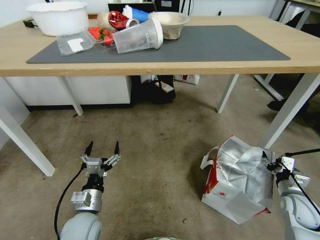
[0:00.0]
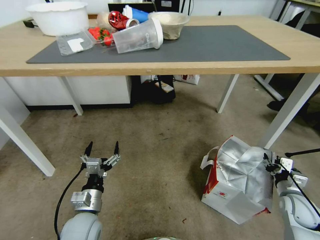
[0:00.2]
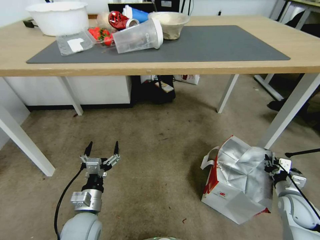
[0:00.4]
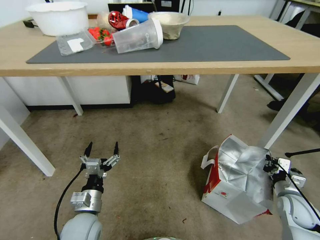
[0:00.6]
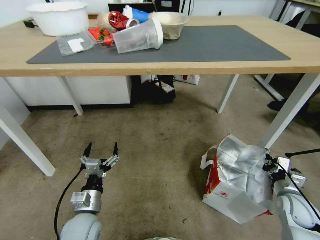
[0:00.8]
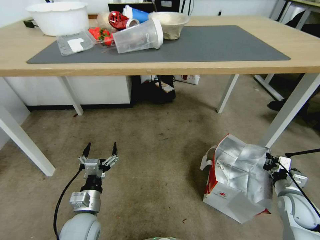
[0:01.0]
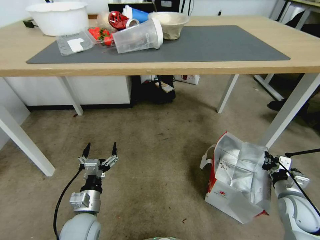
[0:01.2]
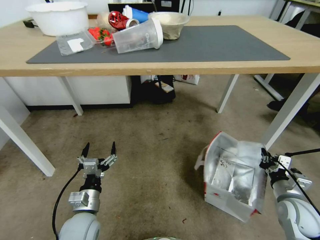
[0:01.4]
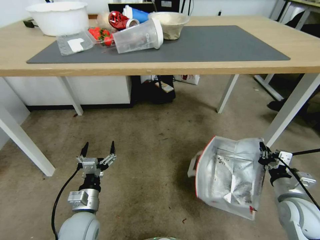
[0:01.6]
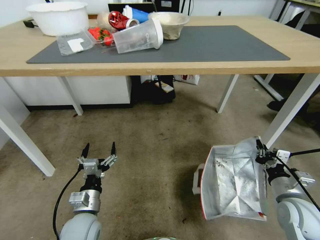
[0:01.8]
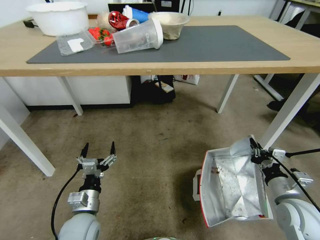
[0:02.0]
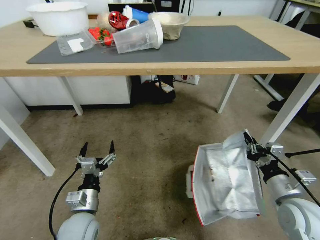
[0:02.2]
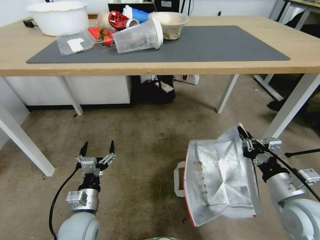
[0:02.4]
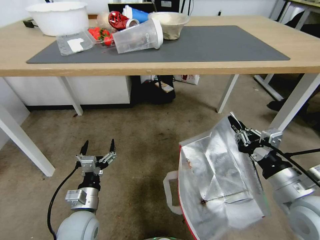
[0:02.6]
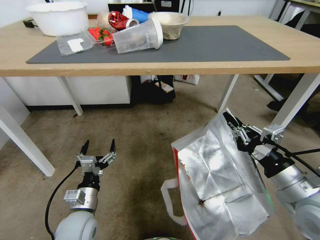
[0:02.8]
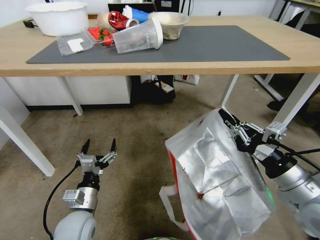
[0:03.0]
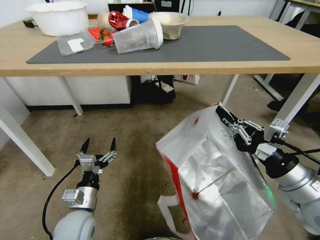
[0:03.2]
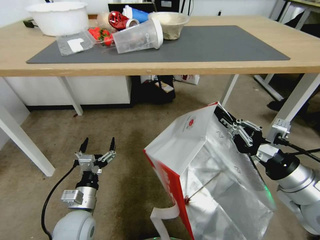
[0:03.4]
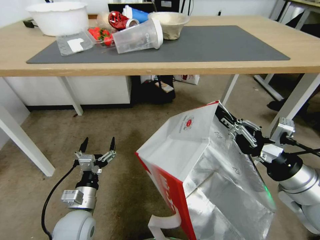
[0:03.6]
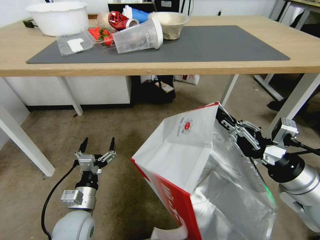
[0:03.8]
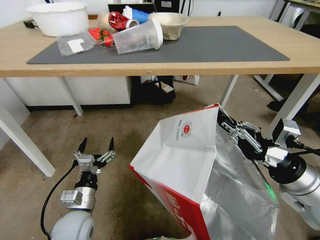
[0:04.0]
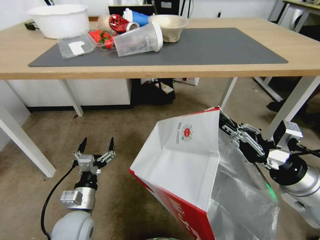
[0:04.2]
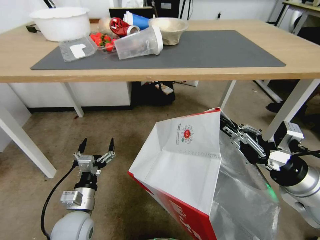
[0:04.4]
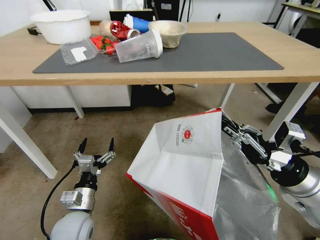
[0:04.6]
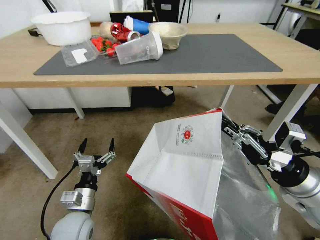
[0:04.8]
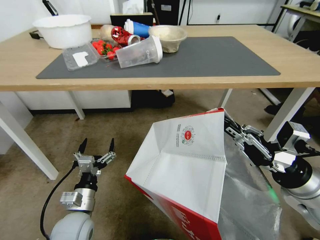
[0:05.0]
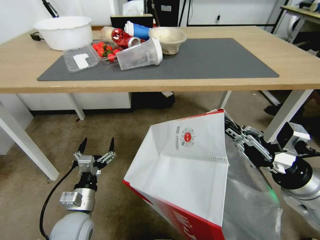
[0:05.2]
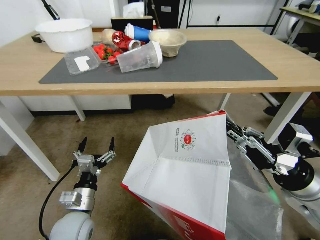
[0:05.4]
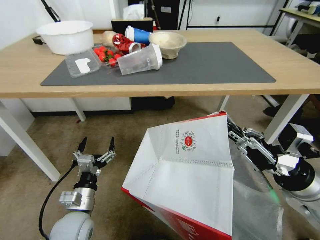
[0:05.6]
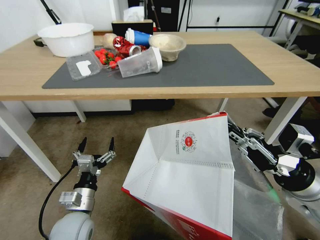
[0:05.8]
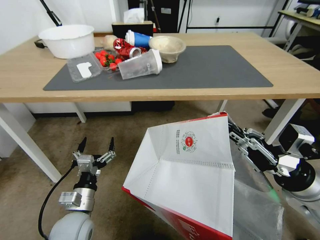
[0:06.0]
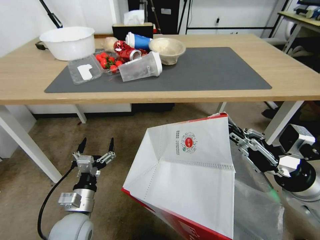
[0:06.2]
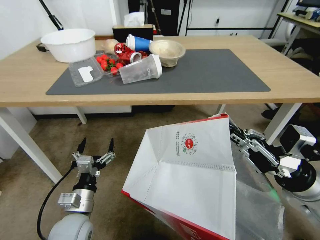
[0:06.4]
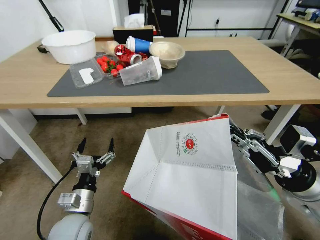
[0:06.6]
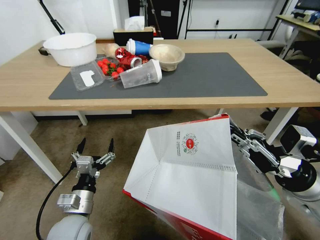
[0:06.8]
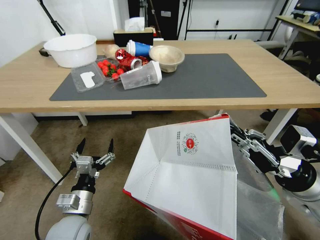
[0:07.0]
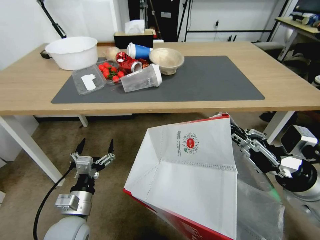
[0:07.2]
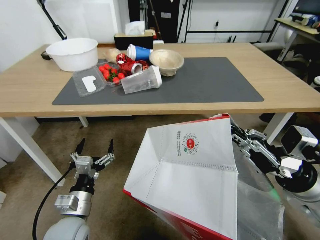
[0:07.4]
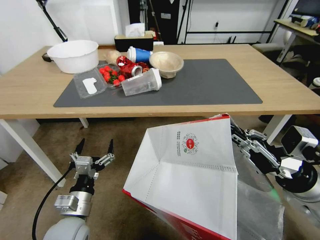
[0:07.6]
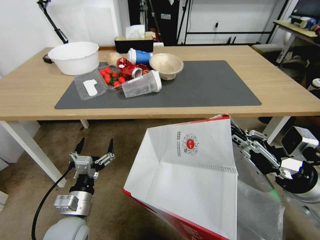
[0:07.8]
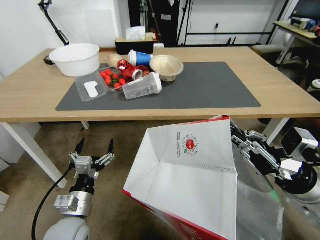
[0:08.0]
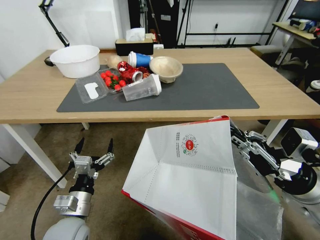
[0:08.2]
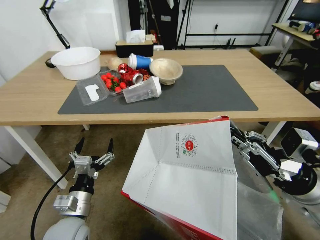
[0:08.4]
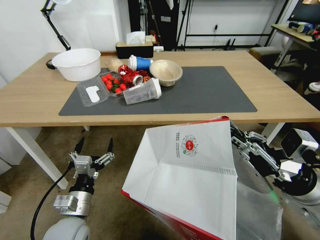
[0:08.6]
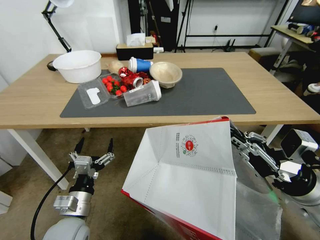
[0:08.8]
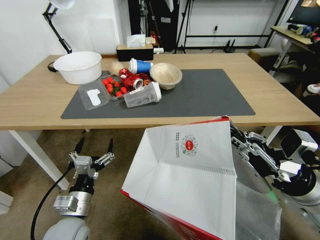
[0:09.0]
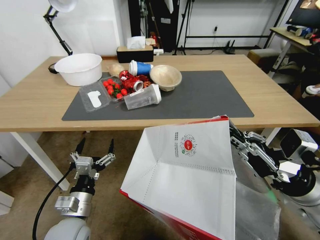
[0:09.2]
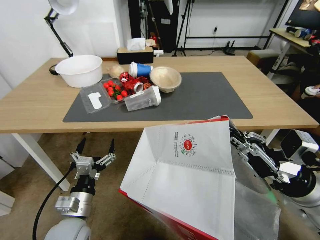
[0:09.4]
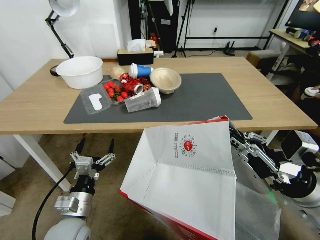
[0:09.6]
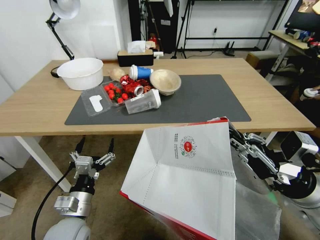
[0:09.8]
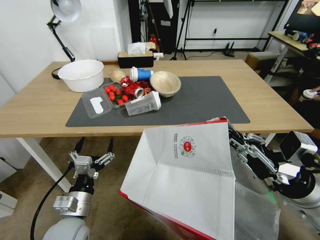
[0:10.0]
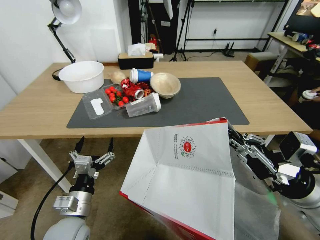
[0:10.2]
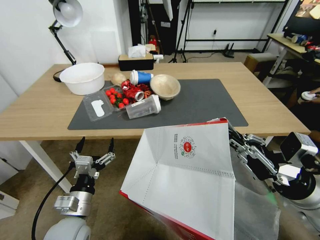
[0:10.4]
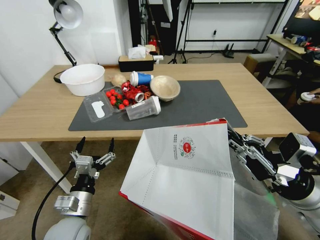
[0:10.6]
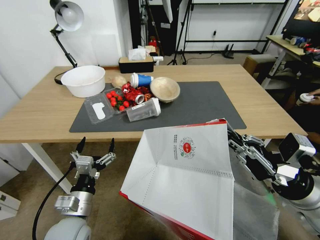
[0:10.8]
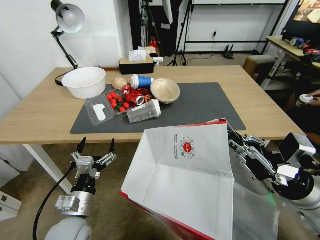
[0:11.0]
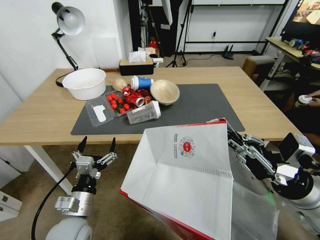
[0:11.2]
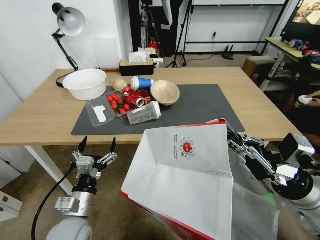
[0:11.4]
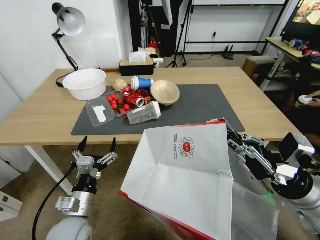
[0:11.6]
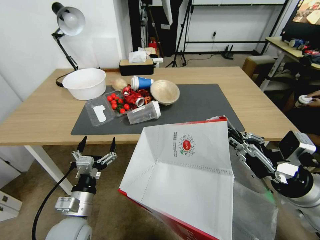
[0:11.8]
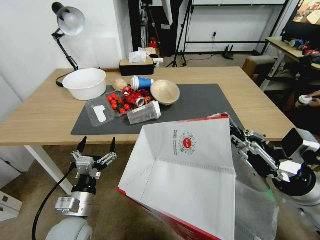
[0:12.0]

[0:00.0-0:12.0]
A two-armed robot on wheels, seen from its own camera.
Task of the whole recording: Pick up the food delivery bag from the floor and place it on the table.
0:00.0 to 0:01.6: The right gripper heads upward and to the left, covering roughly 10 cm, and closes its fingers.
0:01.6 to 0:03.0: The right gripper goes some 15 cm upward and to the left.

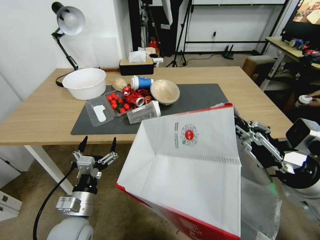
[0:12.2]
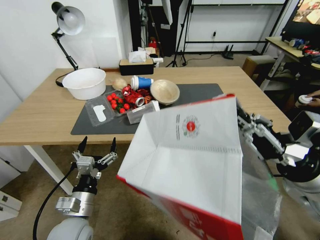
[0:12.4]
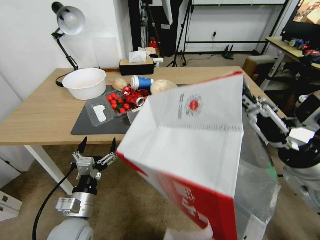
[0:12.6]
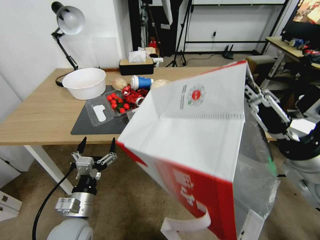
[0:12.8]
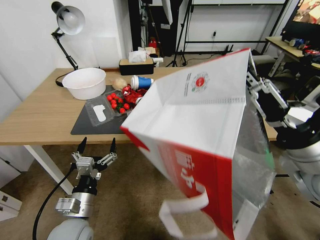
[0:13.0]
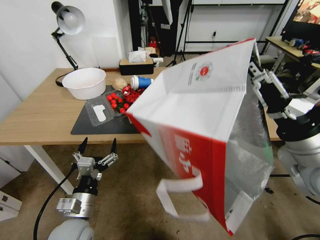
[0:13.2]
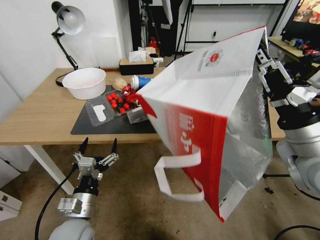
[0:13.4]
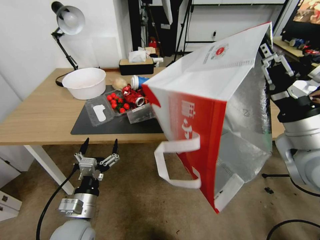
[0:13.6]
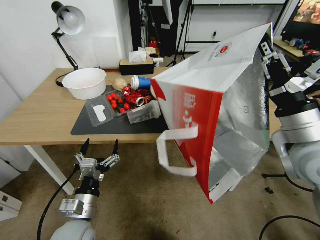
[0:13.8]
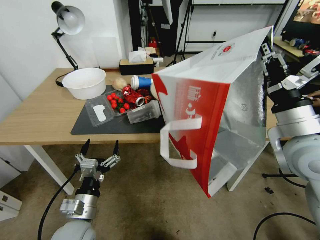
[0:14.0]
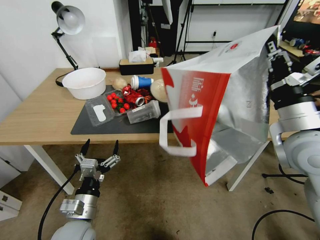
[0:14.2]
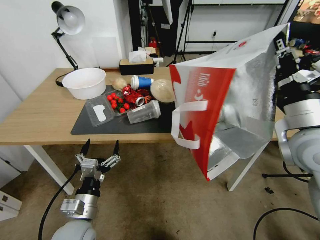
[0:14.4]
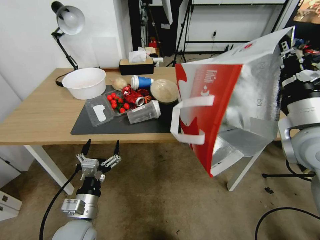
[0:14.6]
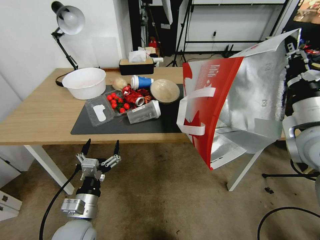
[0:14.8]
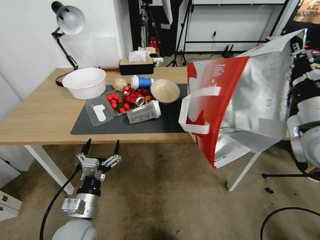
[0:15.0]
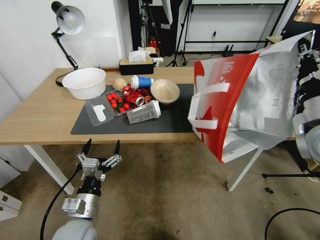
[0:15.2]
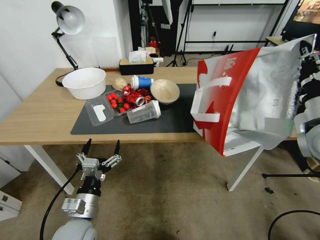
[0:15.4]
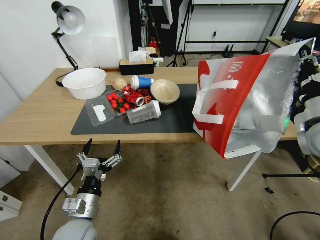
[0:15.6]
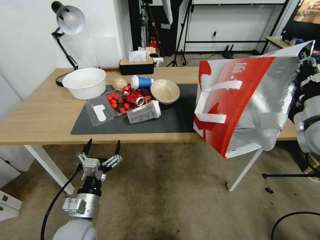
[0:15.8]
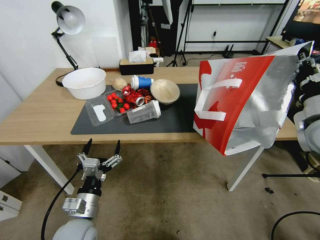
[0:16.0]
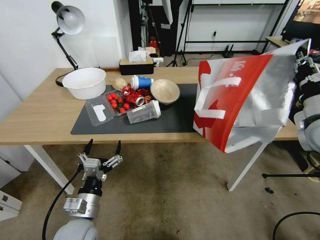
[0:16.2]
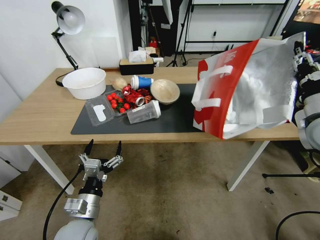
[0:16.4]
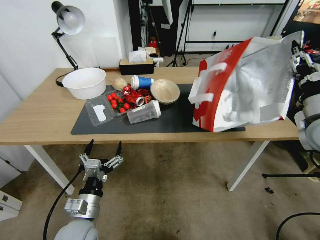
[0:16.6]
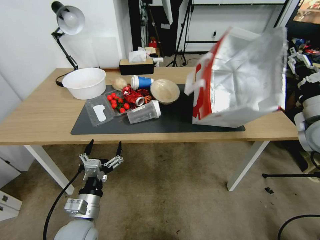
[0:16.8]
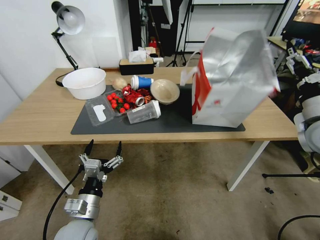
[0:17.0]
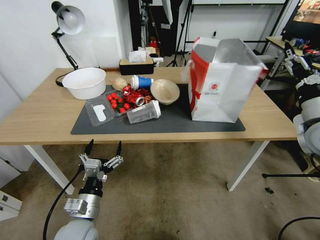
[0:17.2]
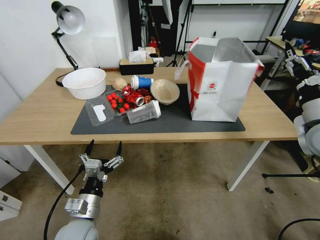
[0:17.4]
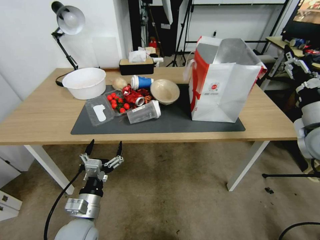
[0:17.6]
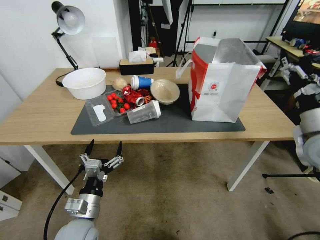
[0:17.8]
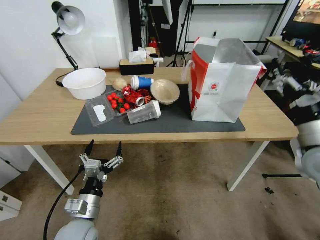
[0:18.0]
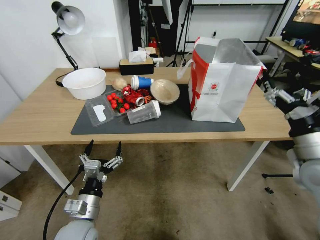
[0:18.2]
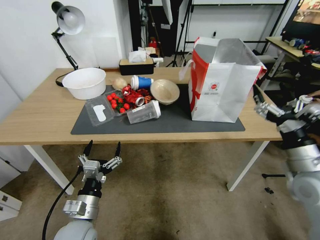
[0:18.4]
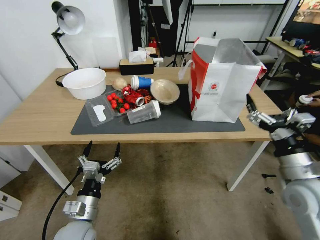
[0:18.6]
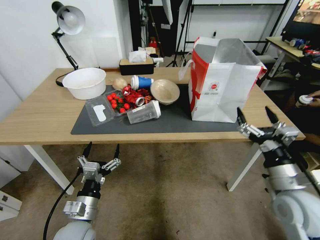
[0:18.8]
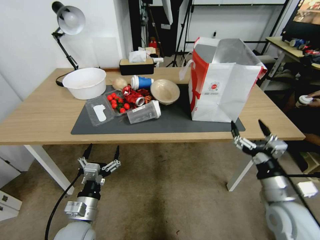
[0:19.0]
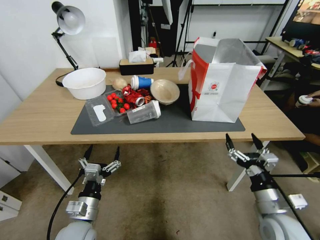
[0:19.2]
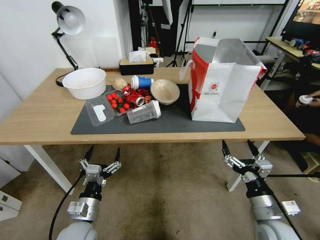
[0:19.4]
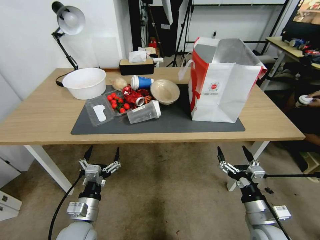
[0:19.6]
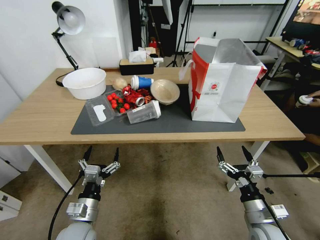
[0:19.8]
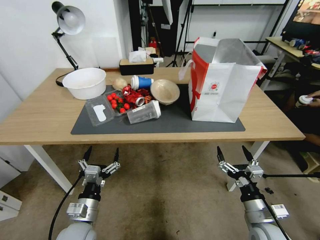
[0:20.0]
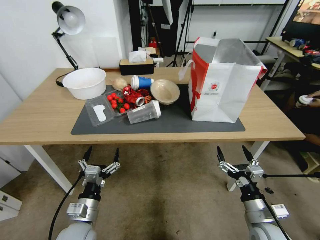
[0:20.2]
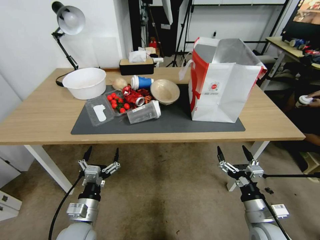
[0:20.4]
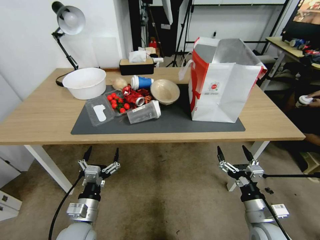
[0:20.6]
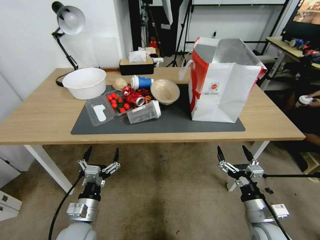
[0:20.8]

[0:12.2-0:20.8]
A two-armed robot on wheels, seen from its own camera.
Task of the whole recording: Pick up the food delivery bag from the floor and place it on the table.
0:12.2 to 0:13.6: The right gripper moves upward, some 5 cm.
0:13.6 to 0:15.0: The right gripper moves about 5 cm.
0:15.0 to 0:16.6: The right gripper travels to the right and forward by about 10 cm, and opens.
0:16.6 to 0:18.0: The right gripper is displaced backward by approximately 5 cm, and opens up.
0:18.0 to 0:19.4: The right gripper moves downward, backward and to the left, some 25 cm.
0:19.4 to 0:20.8: The grippers stay close to where they were, moving slightly.

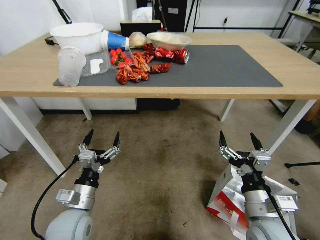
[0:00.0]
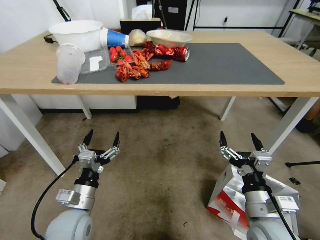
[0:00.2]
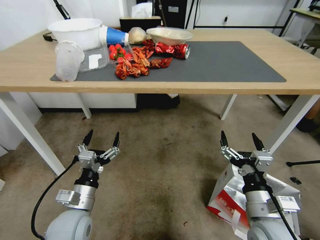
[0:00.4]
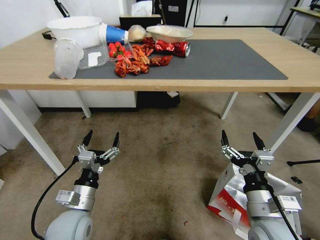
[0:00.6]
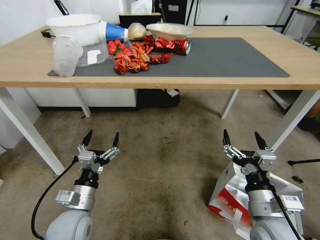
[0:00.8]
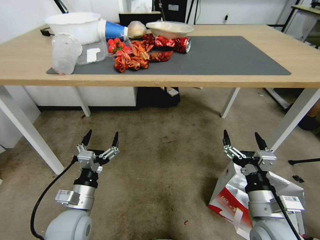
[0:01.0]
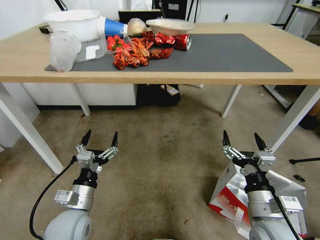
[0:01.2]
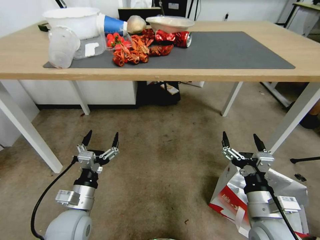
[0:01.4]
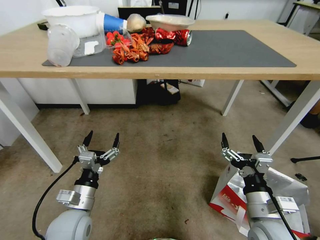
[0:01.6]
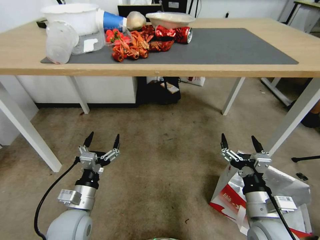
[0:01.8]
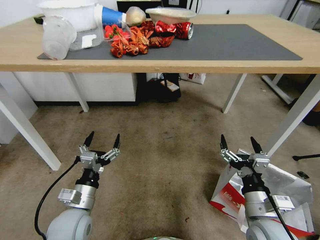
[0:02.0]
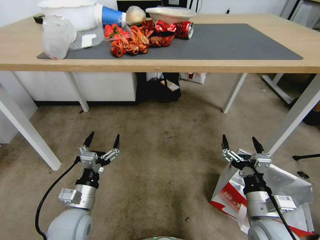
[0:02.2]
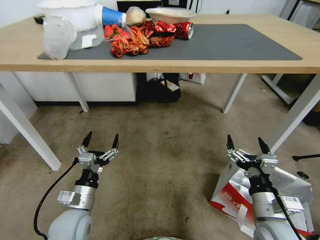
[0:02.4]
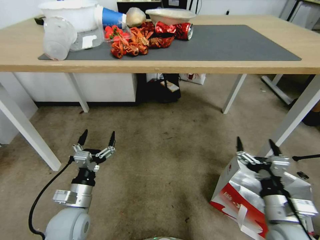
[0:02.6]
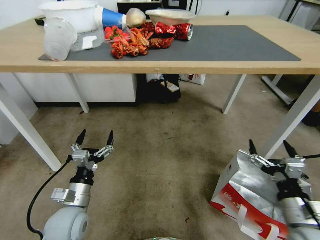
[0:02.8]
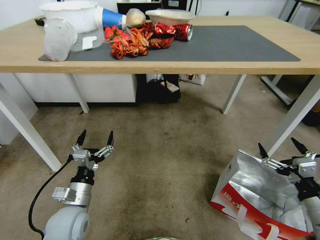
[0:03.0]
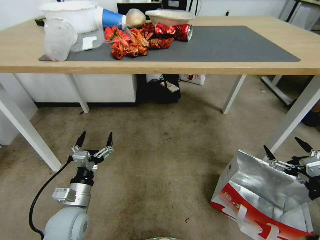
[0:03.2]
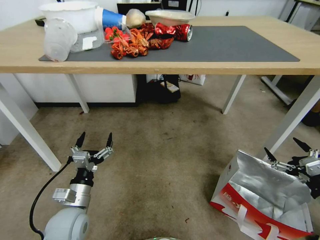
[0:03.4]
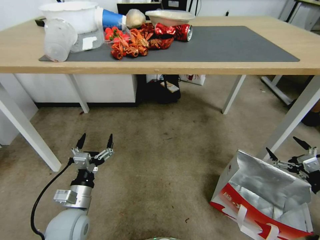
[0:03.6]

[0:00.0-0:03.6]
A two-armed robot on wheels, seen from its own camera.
Task of the whole recording: Pick up the food delivery bag from the floor and place it on the table.
0:01.8 to 0:03.6: The right gripper goes some 30 cm to the right.
